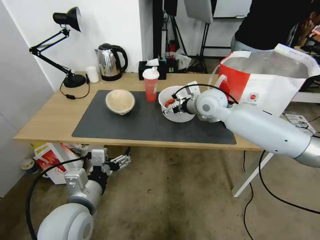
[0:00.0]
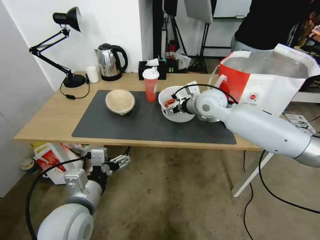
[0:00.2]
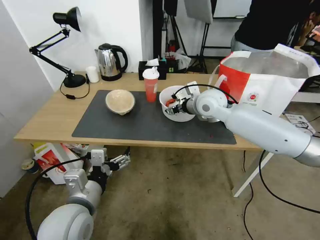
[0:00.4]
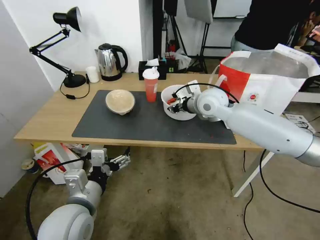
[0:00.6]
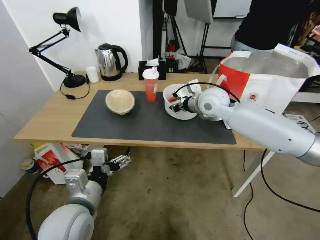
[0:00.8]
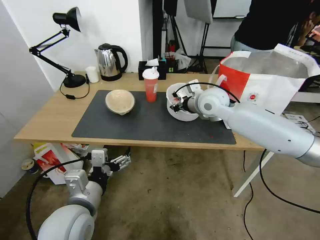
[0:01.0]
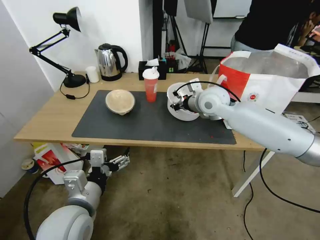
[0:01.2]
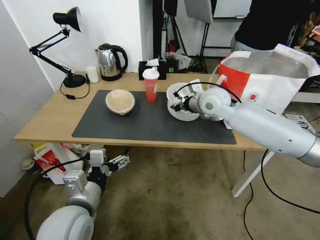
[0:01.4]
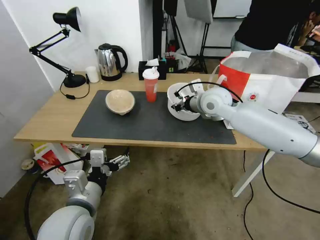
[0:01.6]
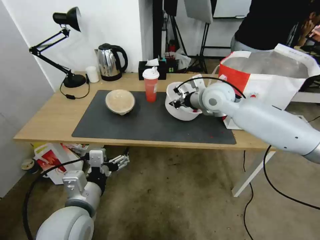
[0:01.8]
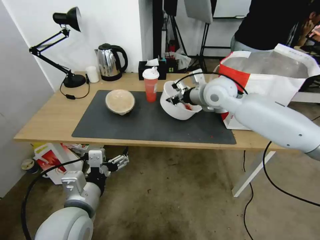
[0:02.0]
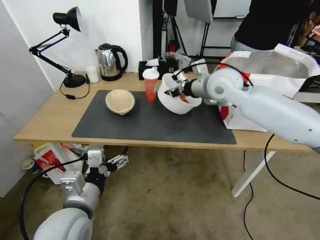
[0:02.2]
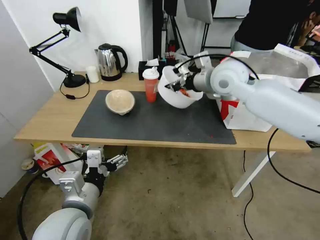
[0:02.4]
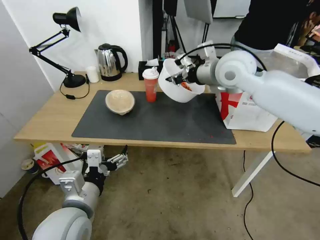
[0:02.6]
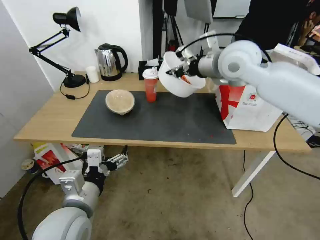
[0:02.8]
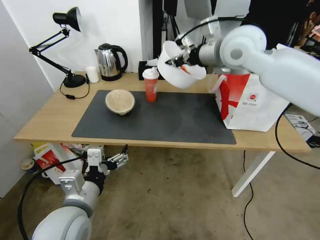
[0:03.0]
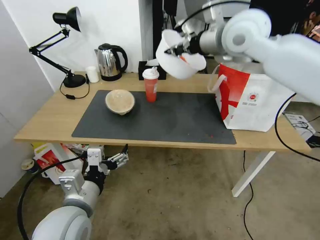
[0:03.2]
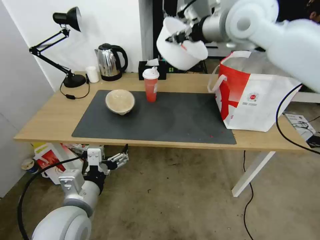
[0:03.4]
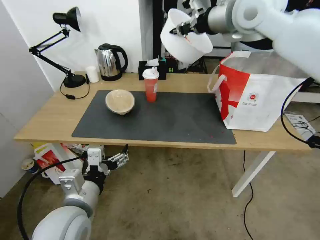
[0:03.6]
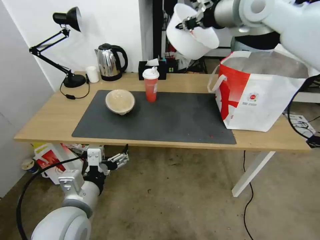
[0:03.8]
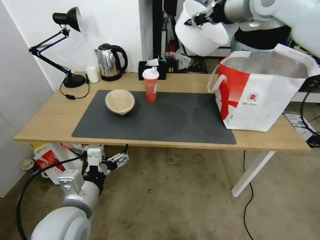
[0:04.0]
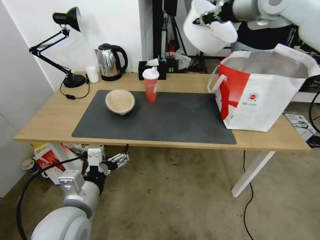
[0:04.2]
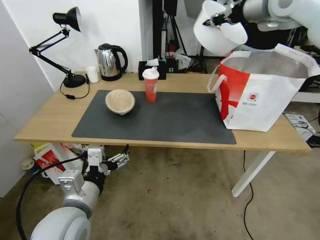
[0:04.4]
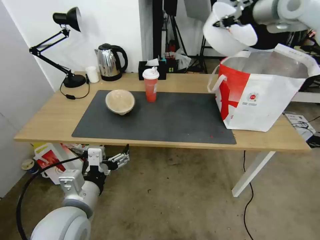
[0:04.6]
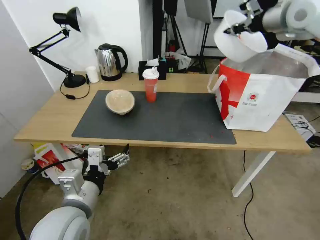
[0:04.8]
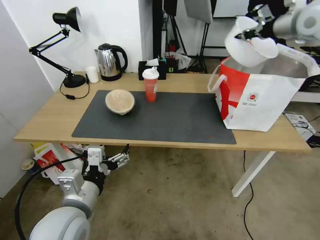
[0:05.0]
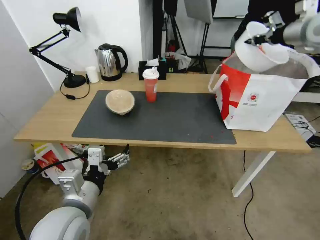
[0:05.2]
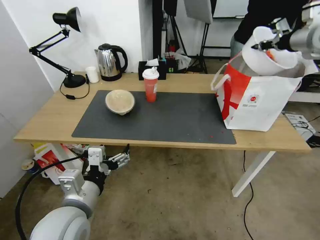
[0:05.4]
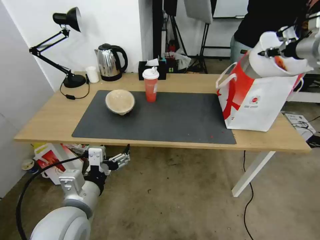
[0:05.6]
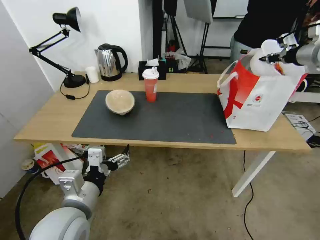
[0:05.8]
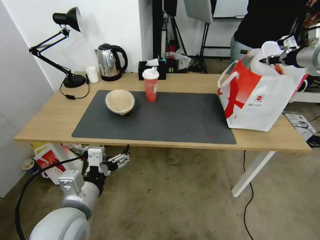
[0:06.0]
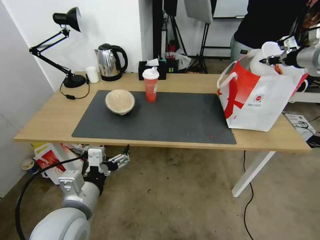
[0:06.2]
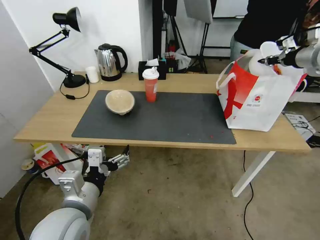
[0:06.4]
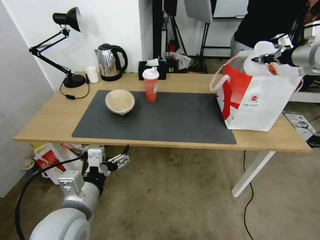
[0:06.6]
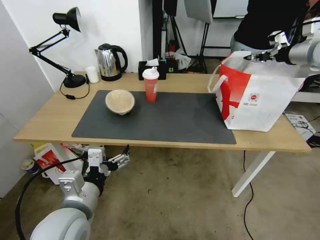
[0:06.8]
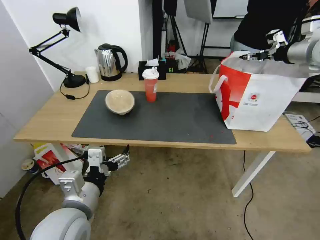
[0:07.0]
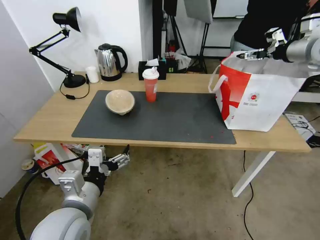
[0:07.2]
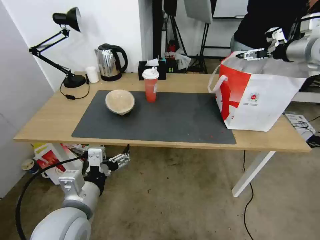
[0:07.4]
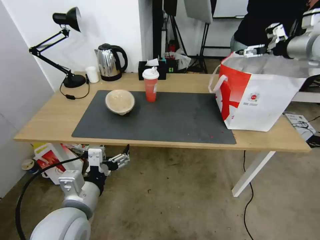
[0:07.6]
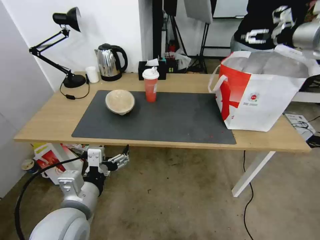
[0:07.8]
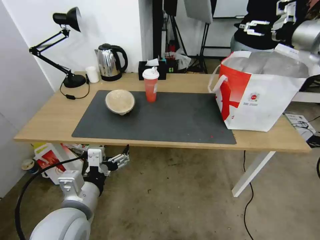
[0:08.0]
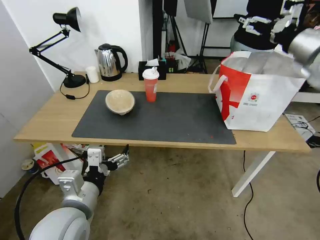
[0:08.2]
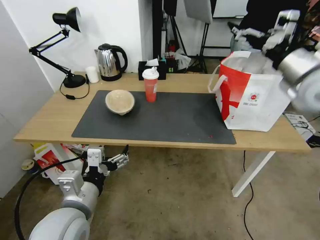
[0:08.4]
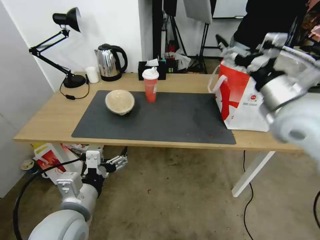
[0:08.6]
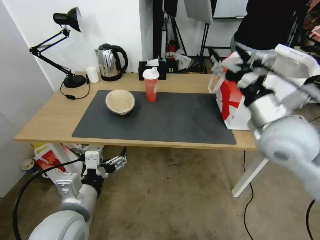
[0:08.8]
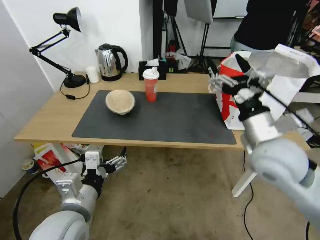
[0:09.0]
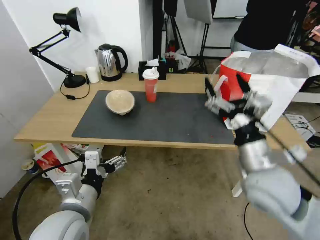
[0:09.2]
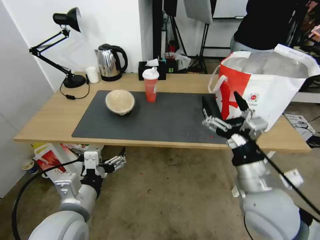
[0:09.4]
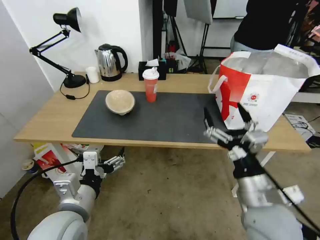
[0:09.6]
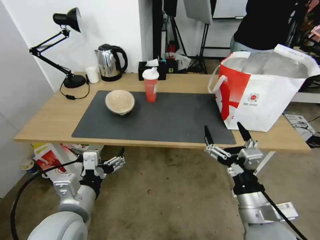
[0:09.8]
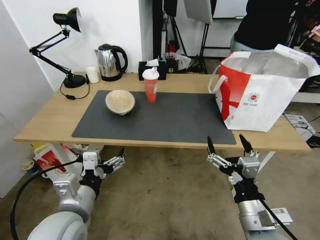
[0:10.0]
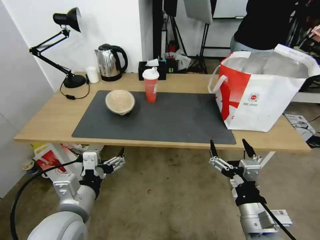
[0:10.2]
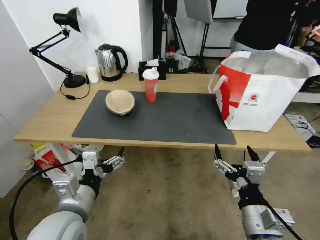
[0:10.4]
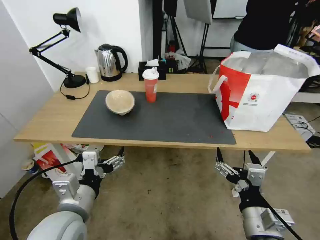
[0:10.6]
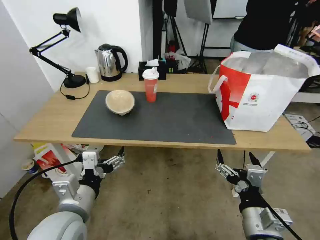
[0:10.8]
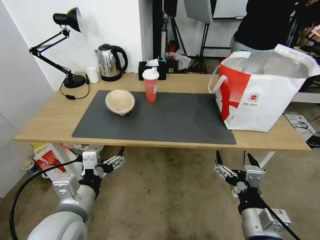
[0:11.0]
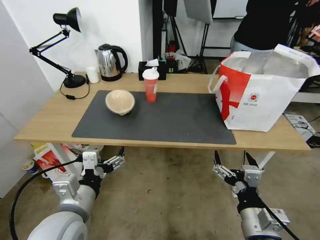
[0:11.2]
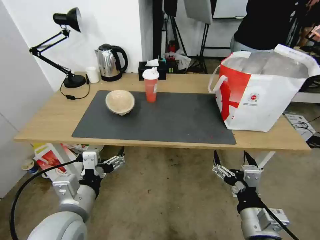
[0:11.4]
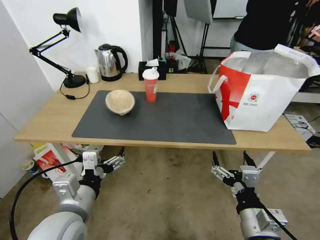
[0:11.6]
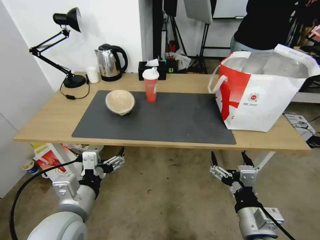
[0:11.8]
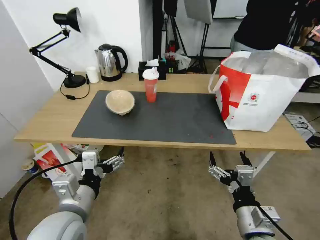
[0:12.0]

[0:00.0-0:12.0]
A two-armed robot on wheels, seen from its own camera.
Task of the whole recording: Pick up the trash from the table and place it into the takeout bag.
0:00.0 to 0:01.6: The right gripper closes.
0:01.6 to 0:03.0: The right gripper moves upward, some 15 cm.
0:03.0 to 0:04.4: The right gripper shifts approximately 15 cm upward and to the right.
0:04.4 to 0:06.0: The right gripper heads to the right and downward, covering roughly 25 cm.
0:06.0 to 0:07.6: The right gripper shifts by approximately 5 cm, and opens its fingers.
0:07.6 to 0:09.0: The right gripper shifts some 35 cm backward, to the left and downward.
0:09.0 to 0:10.4: The right gripper moves backward and downward, roughly 20 cm.
0:10.4 to 0:12.0: The grippers stay close to where they were, moving slightly.

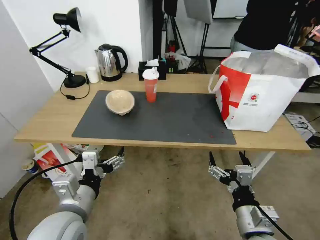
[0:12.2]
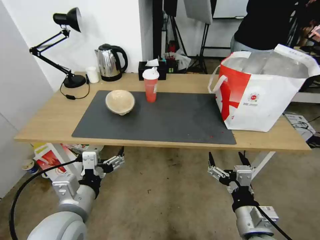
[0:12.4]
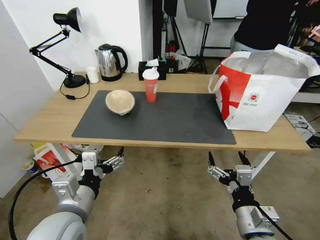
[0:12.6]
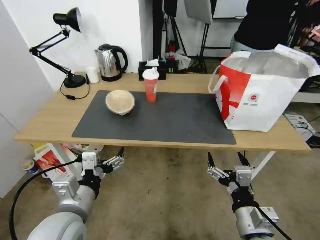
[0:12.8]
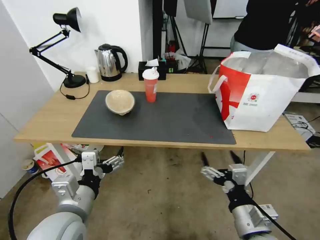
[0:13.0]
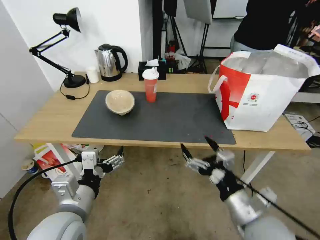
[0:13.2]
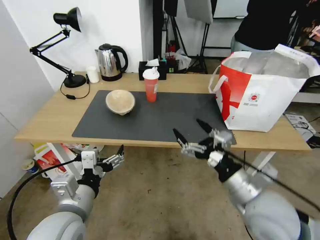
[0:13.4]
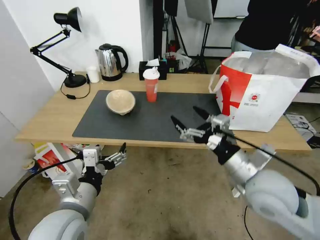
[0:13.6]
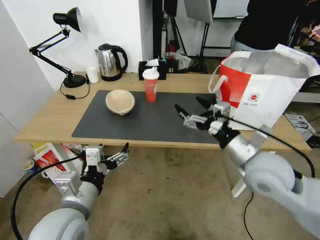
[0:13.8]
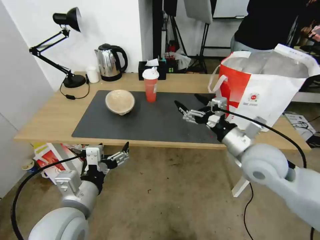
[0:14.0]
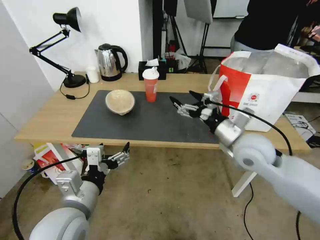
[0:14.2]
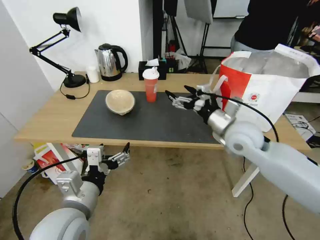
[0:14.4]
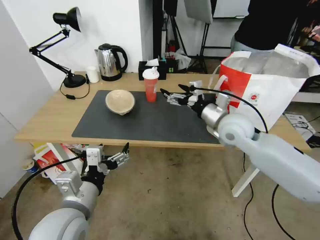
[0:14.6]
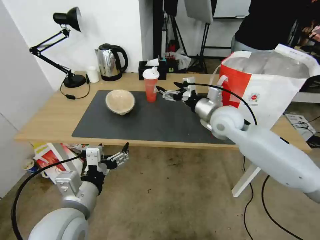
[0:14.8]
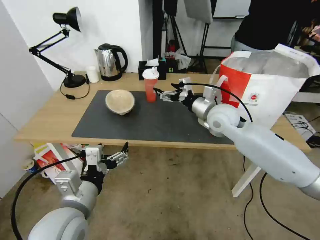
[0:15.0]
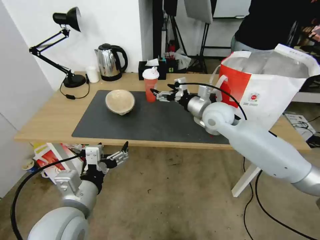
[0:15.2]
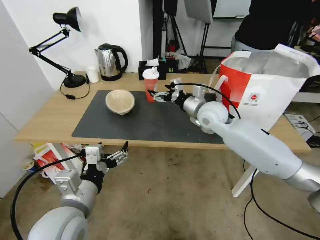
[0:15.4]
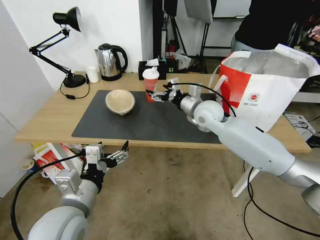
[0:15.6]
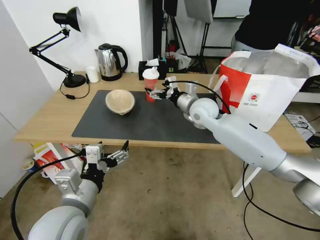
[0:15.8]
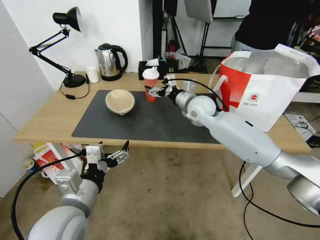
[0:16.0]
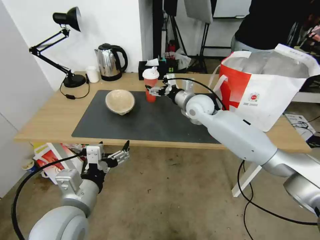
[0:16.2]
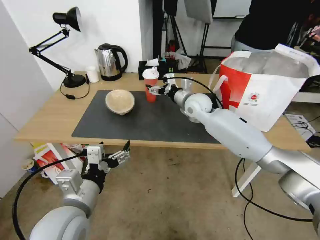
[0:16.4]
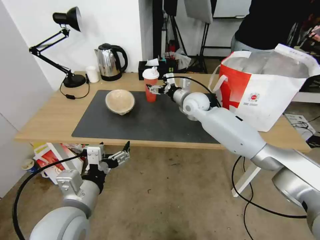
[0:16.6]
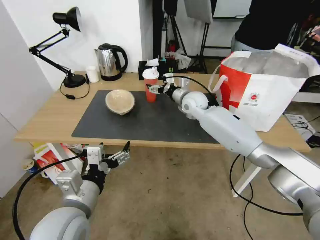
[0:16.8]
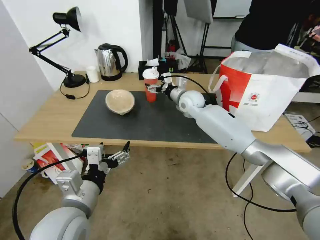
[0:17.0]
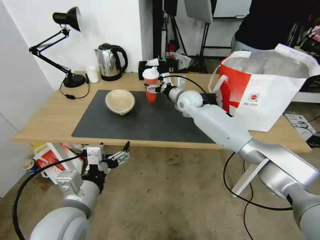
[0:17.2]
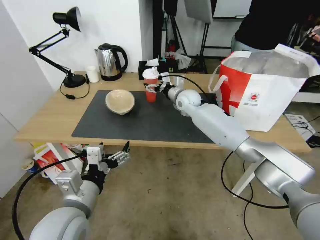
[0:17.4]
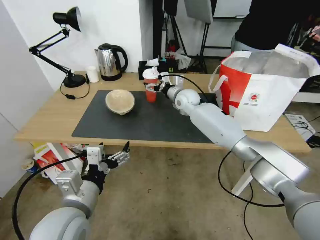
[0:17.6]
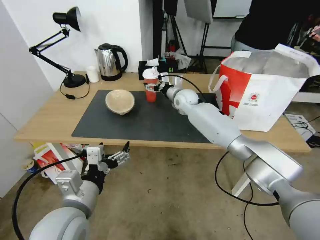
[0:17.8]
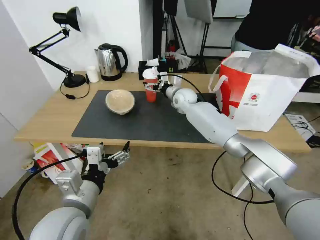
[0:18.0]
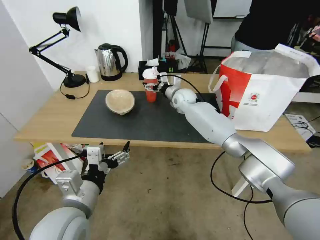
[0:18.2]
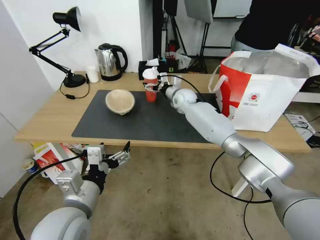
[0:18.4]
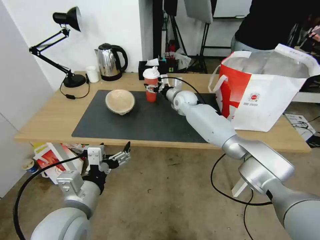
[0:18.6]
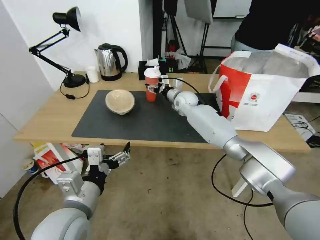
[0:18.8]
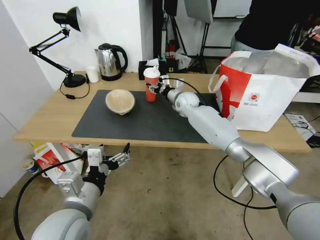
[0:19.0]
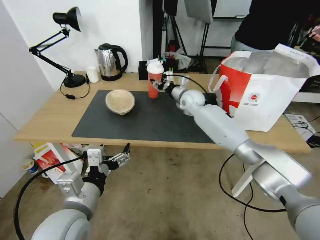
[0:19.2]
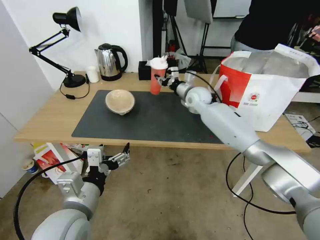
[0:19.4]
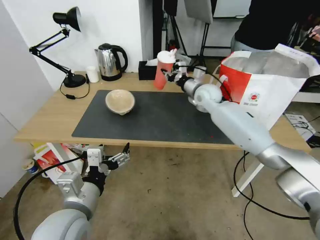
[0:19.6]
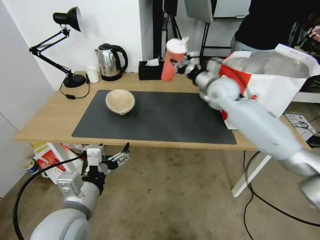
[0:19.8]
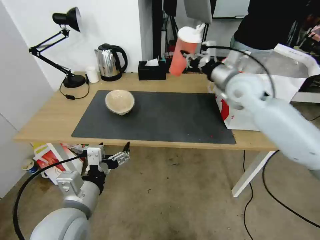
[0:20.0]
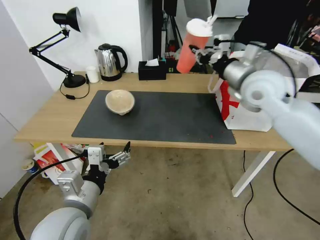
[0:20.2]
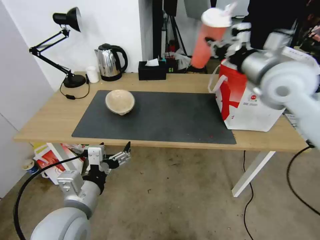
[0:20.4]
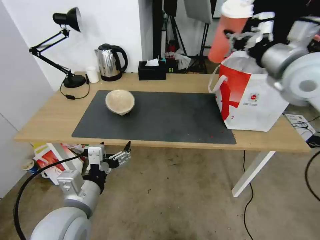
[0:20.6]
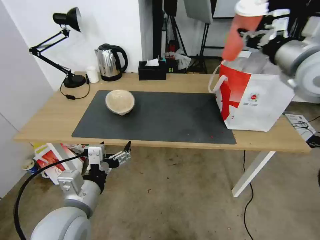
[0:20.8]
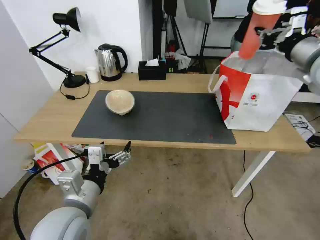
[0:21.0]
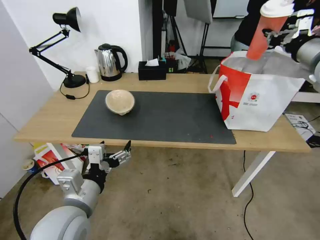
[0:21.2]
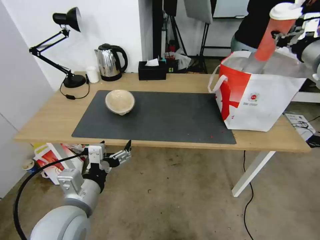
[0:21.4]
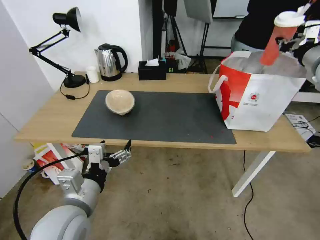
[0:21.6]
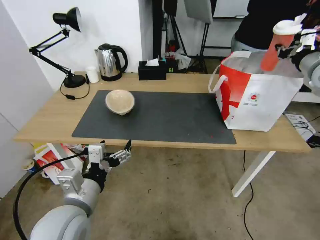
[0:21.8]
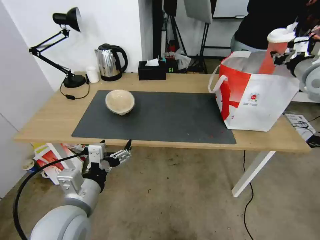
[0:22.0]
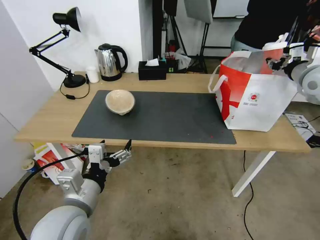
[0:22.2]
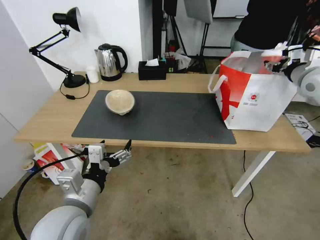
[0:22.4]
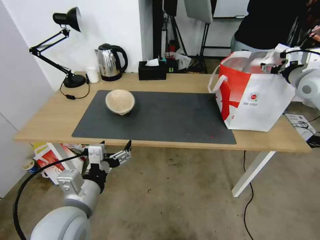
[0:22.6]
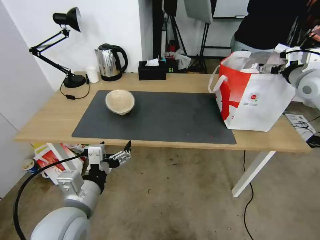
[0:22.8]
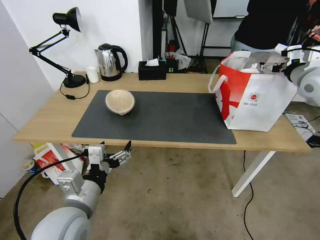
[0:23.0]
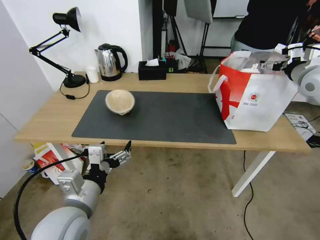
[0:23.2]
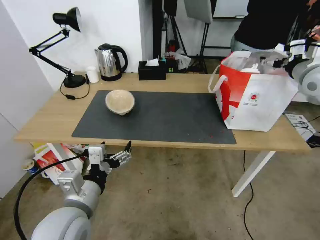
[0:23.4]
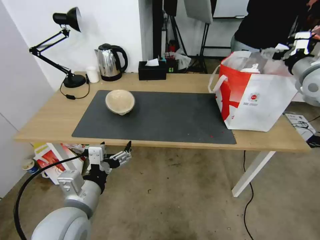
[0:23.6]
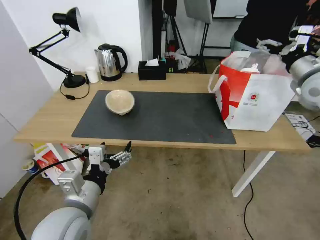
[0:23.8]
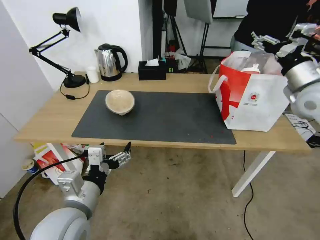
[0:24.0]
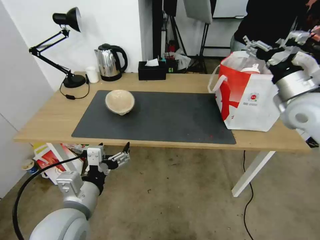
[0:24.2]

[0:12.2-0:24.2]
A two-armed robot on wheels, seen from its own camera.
Task of the whole recording: Pick up the trash from the table and place it into the takeout bag.
0:12.2 to 0:13.8: The right gripper goes some 20 cm forward and upward.
0:13.8 to 0:15.2: The right gripper goes some 20 cm forward.
0:15.2 to 0:16.6: The right gripper goes approximately 10 cm forward.
0:16.6 to 0:18.2: The right gripper heads forward, covering approximately 5 cm.
0:18.2 to 0:19.8: The right gripper is displaced to the right, upward and backward by about 15 cm, and closes up.
0:19.8 to 0:21.2: The right gripper shifts some 30 cm to the right, upward and backward.
0:21.2 to 0:22.6: The right gripper is displaced downward, forward and to the right by approximately 10 cm, and opens its fingers.
0:22.6 to 0:24.2: The right gripper heads backward and to the left, covering roughly 10 cm.
